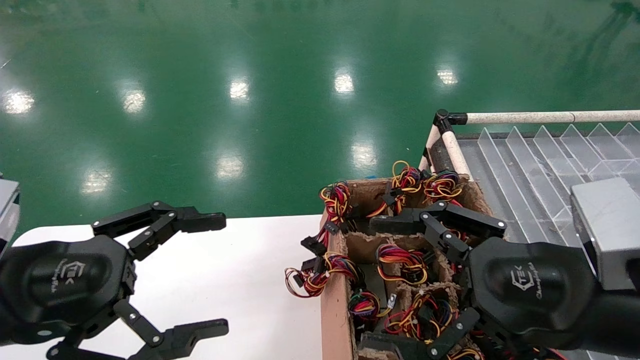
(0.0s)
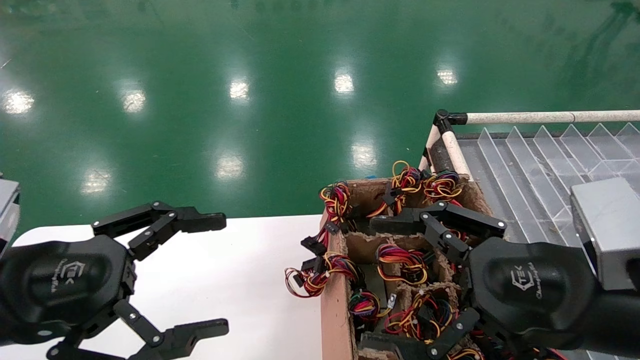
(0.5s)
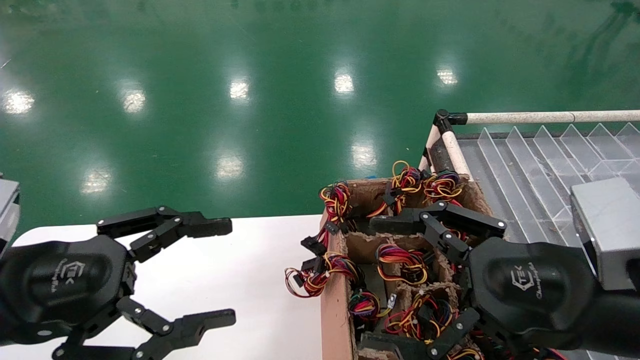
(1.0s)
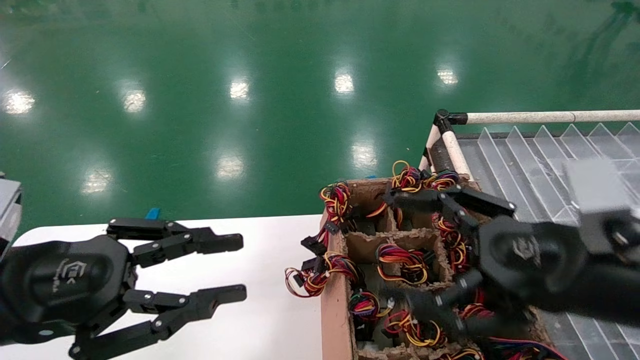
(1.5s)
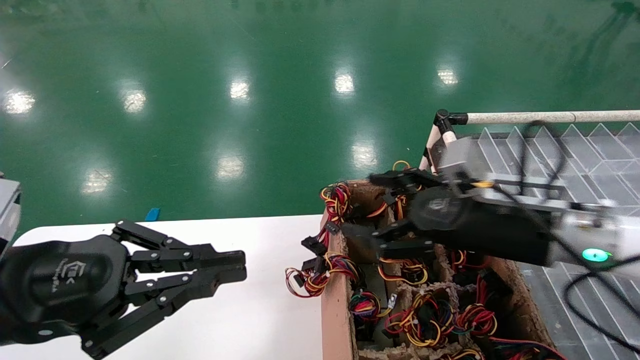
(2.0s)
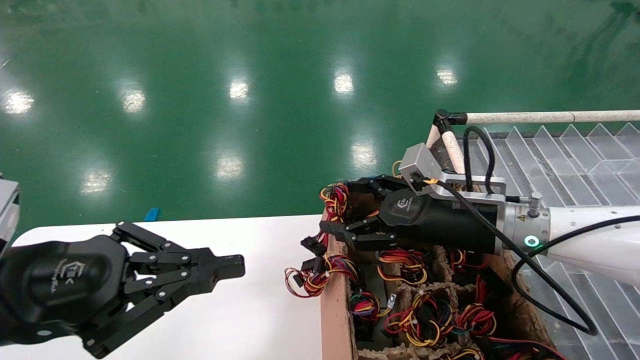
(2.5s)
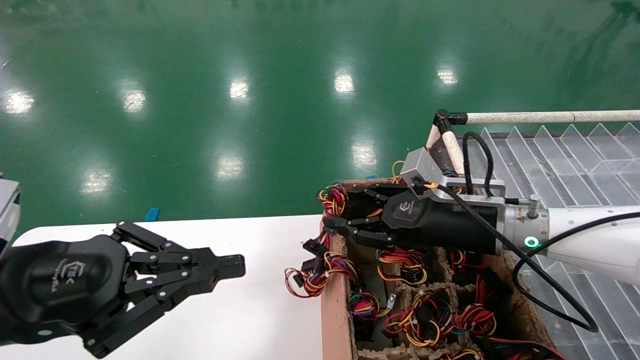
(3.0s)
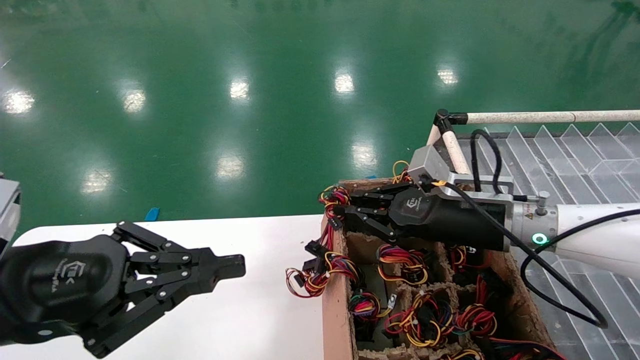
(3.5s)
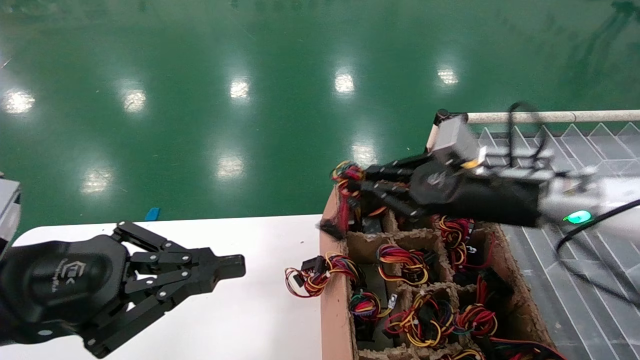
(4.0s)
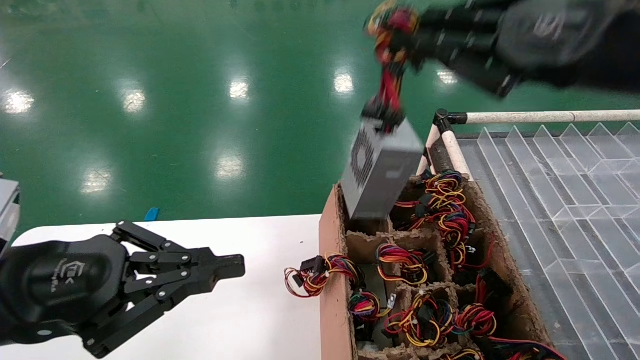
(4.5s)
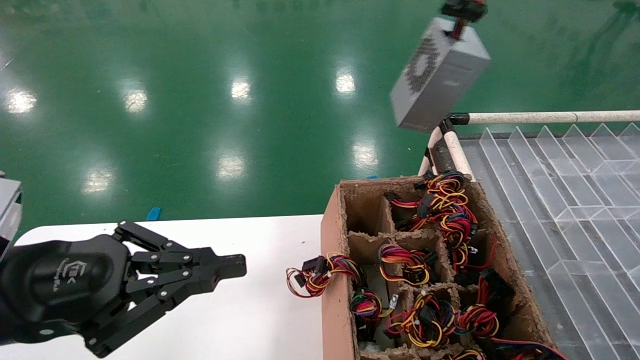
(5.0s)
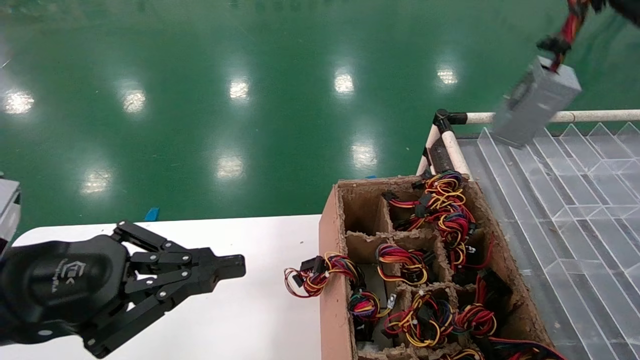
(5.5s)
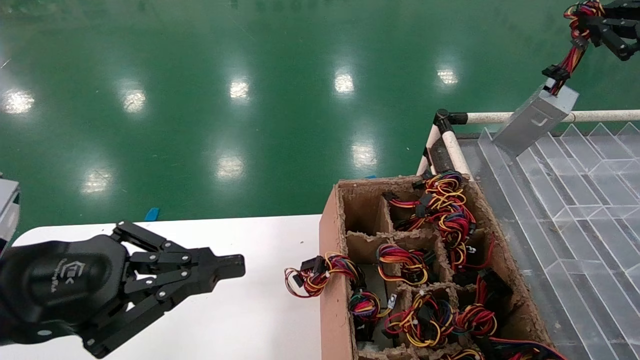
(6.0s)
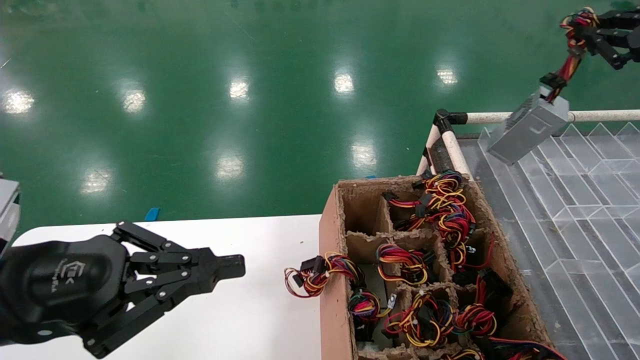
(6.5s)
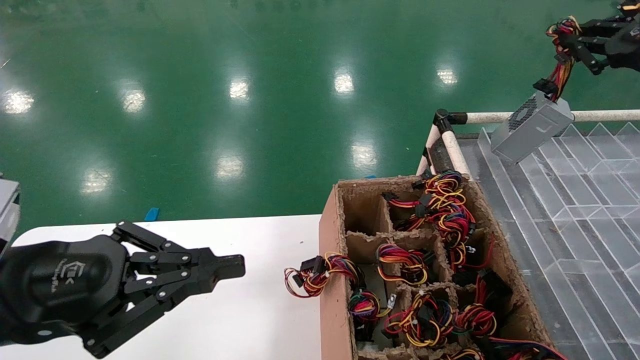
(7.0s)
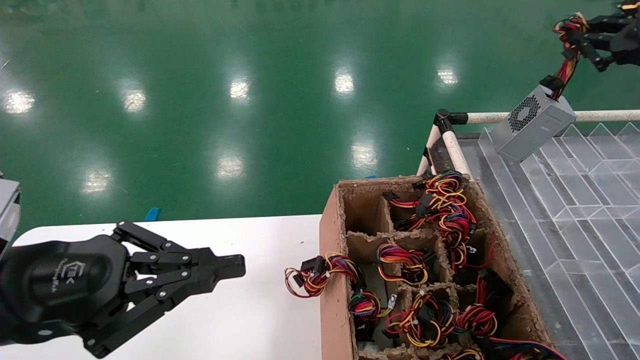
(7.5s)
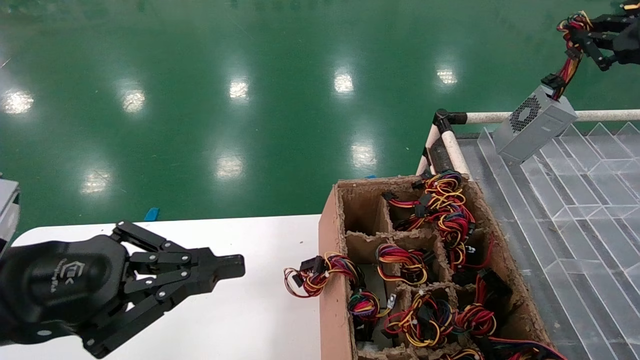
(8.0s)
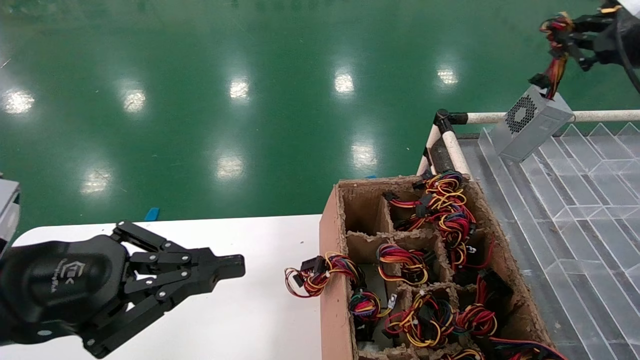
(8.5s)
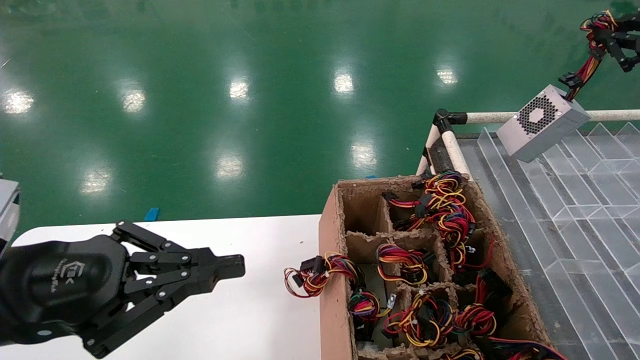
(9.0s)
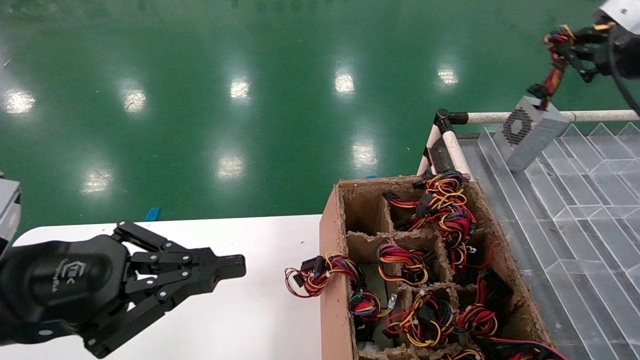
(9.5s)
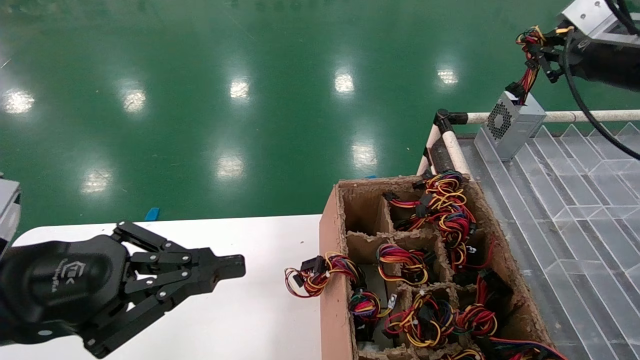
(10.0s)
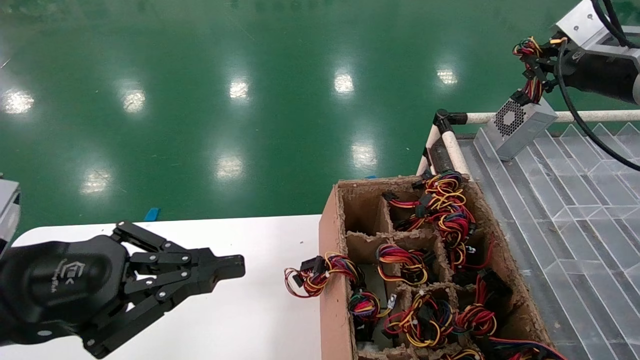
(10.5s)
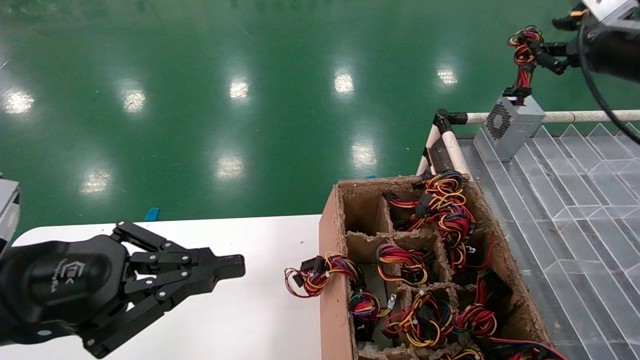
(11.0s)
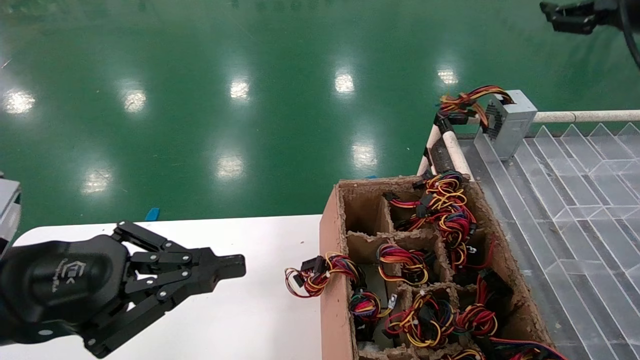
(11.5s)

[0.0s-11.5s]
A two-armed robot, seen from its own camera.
Step, 2.0s to 3.5s: Grab the main unit power supply from the containment box.
0.0s to 2.0s: The left gripper closes its fingers. Meanwhile the right gripper travels forward by about 15 cm.
2.0s to 4.0s: The right gripper shifts by roughly 5 cm, and closes.
4.0s to 6.0s: The right gripper shifts some 25 cm to the right and upward.
6.0s to 9.5s: The grippers make only small movements.
9.5s to 11.5s: The right gripper opens up.

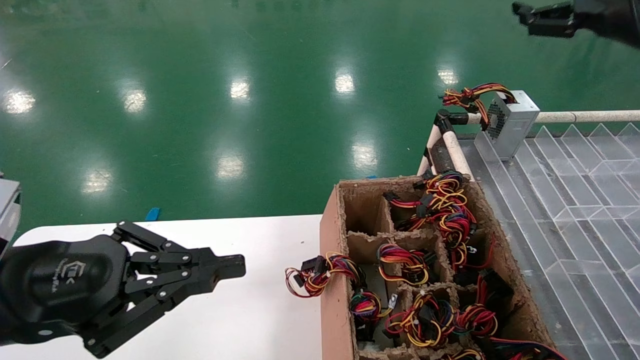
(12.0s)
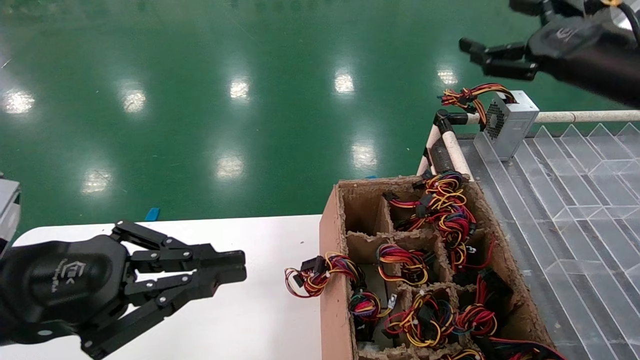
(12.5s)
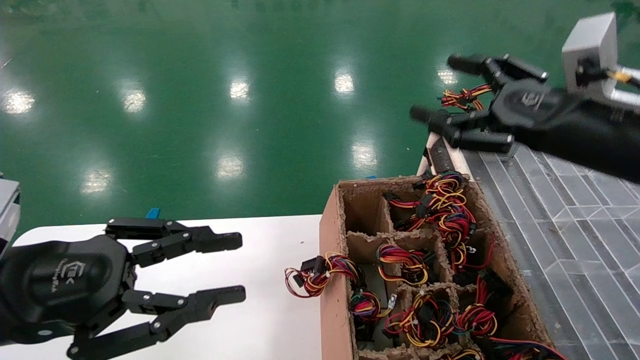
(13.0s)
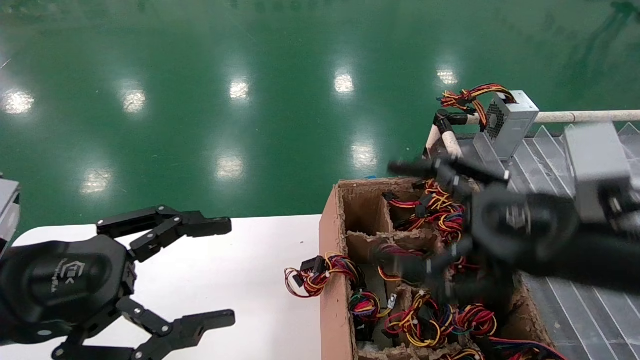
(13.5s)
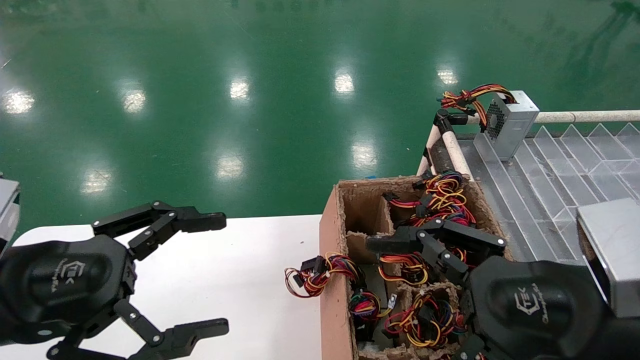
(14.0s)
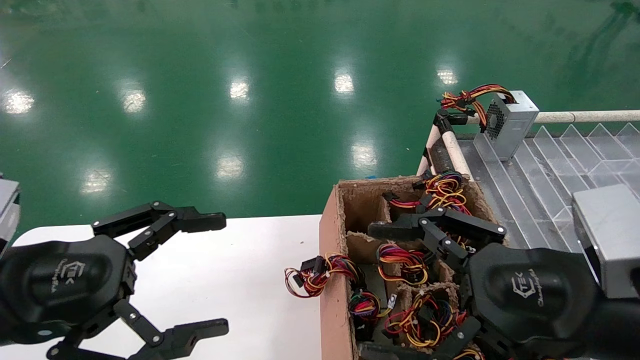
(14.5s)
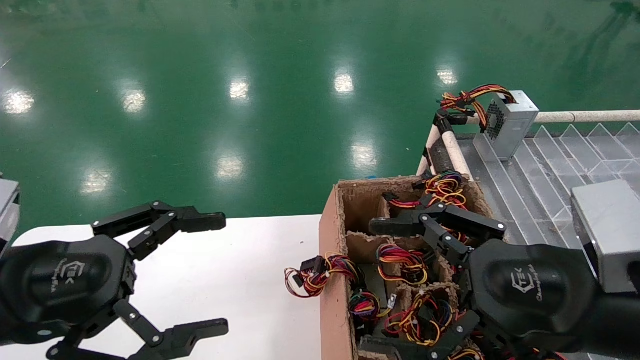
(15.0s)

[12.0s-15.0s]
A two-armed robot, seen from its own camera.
12.0s to 13.5s: The right gripper is displaced downward, backward and to the left by approximately 25 cm. The left gripper opens its fingers.
13.5s to 15.0s: There are only small adjustments of the grippers.
